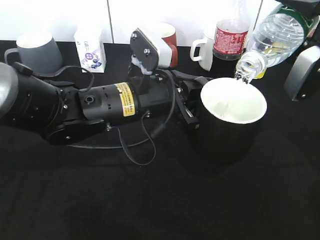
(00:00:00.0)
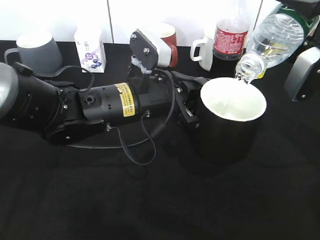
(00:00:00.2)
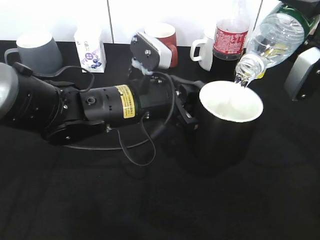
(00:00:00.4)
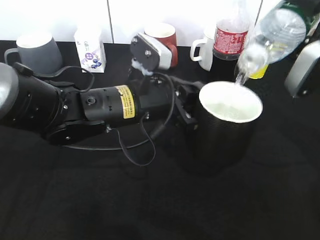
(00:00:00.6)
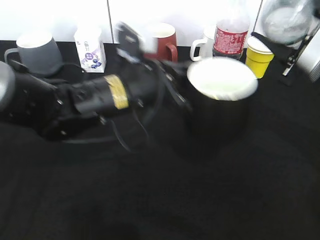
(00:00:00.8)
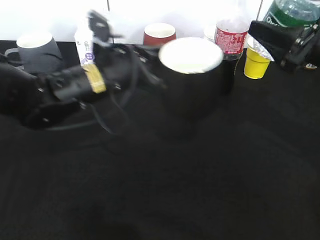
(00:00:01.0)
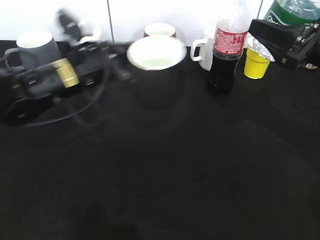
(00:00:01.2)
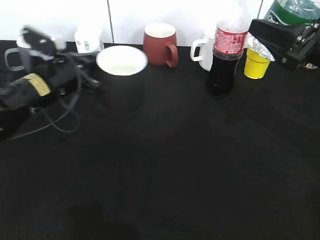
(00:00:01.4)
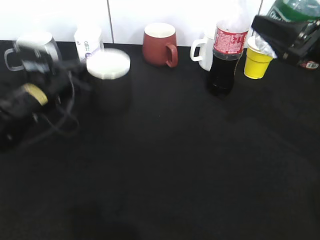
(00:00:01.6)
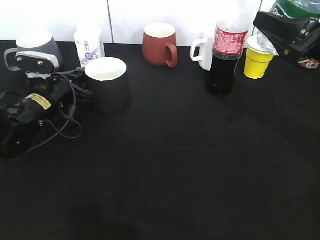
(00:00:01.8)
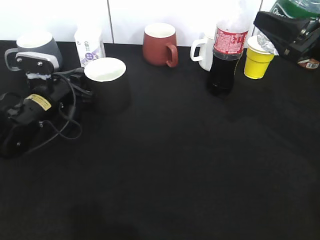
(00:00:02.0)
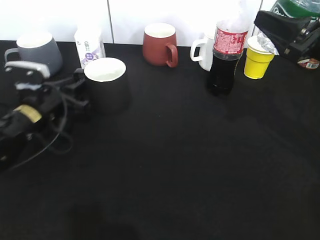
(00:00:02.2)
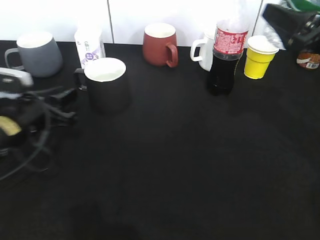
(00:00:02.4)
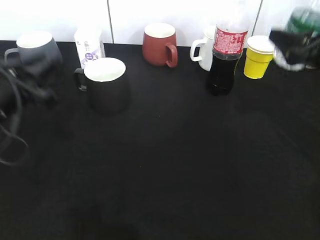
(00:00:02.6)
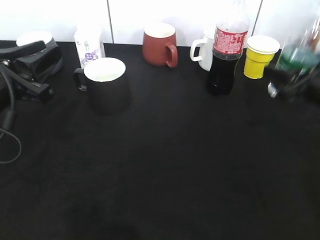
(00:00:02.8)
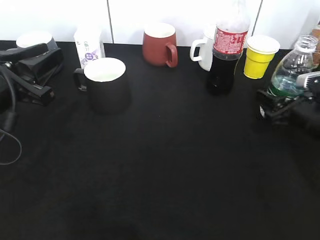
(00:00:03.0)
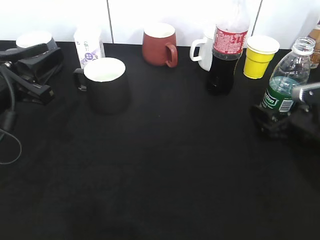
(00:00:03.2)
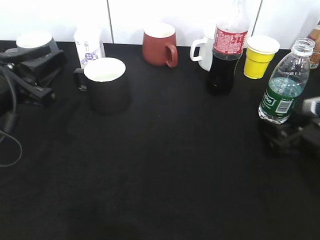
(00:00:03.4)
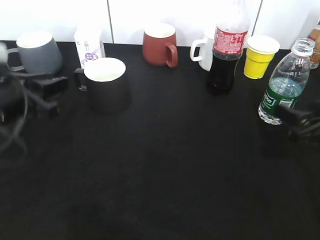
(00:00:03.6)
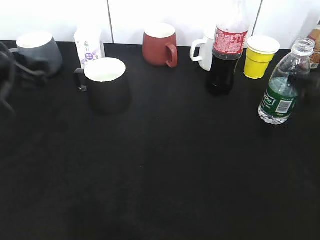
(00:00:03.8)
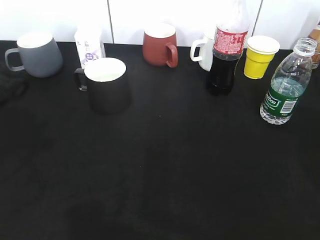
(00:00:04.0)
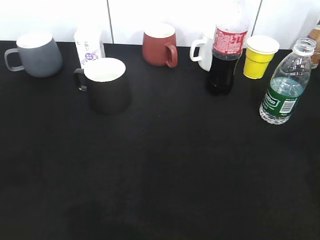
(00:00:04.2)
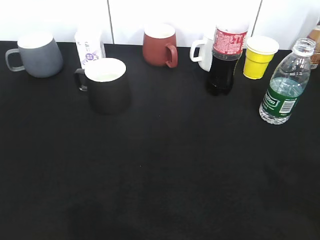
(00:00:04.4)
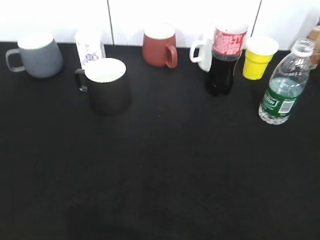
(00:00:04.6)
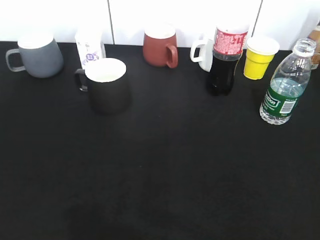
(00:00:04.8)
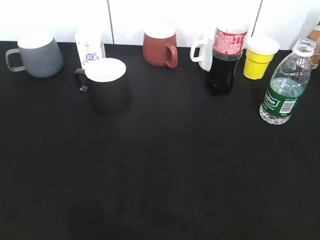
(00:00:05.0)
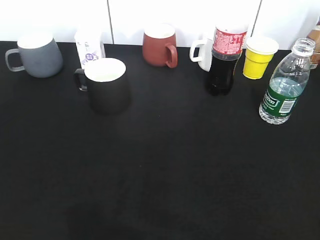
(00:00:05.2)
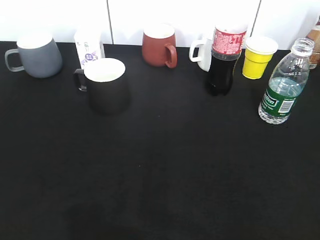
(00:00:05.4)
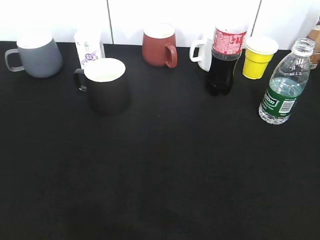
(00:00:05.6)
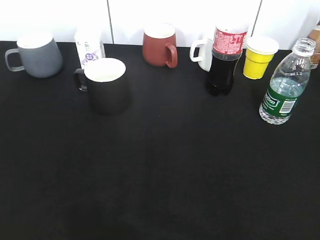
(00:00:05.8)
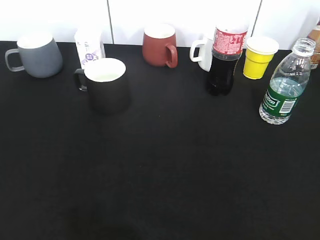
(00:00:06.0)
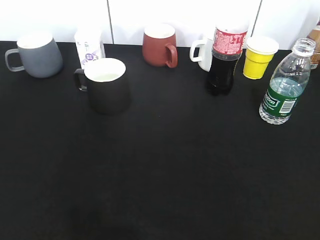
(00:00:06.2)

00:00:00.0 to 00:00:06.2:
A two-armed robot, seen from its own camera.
Step, 00:00:01.2 to 00:00:02.2: Place the black cup on the table with left gripper.
Step, 00:00:02.4 to 00:00:03.2: Place the water bottle on the table with right gripper.
00:00:00.0 to 00:00:01.6: The left gripper travels to the left and forward by some 20 cm.
00:00:01.6 to 00:00:03.2: The left gripper is displaced backward and upward by some 15 cm, and opens its fingers; the right gripper goes roughly 15 cm downward, and opens its fingers.
00:00:03.2 to 00:00:04.6: The left gripper heads backward, covering about 25 cm. Meanwhile the right gripper heads backward and upward, covering approximately 40 cm, and closes its fingers.
00:00:04.6 to 00:00:06.2: The right gripper changes place by approximately 5 cm.
